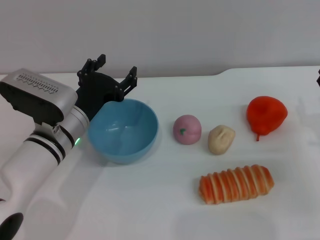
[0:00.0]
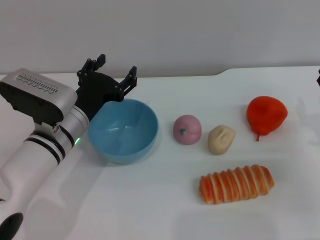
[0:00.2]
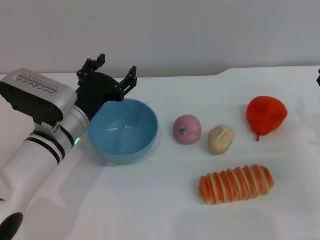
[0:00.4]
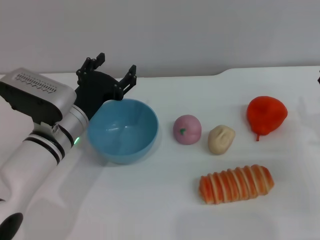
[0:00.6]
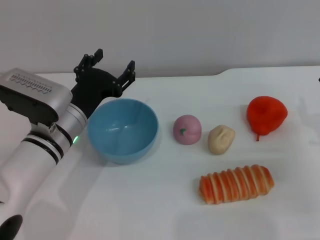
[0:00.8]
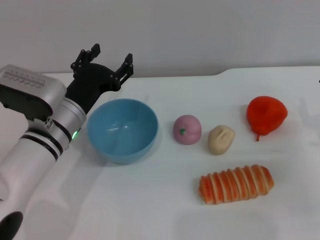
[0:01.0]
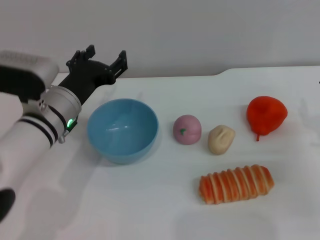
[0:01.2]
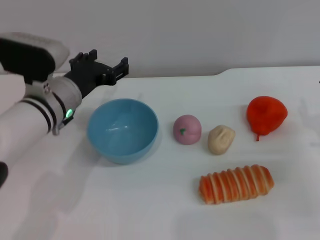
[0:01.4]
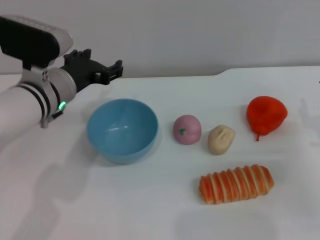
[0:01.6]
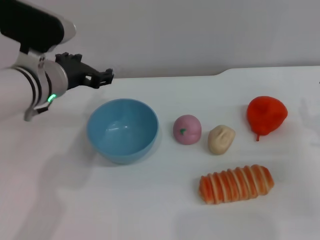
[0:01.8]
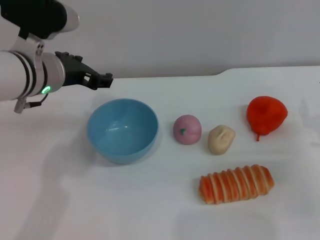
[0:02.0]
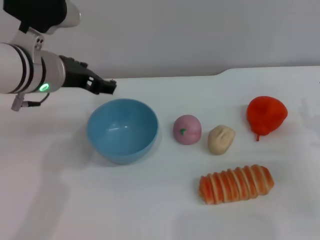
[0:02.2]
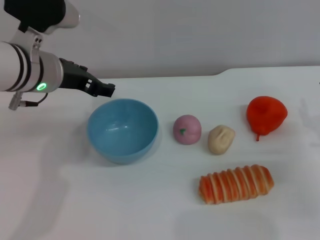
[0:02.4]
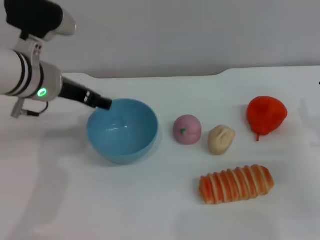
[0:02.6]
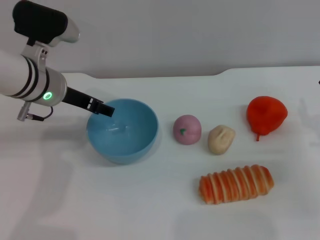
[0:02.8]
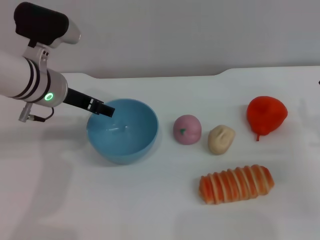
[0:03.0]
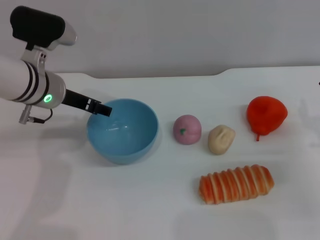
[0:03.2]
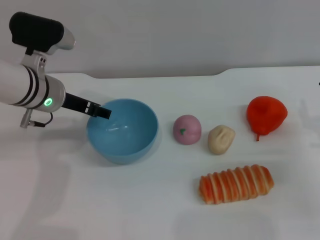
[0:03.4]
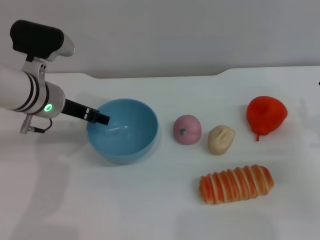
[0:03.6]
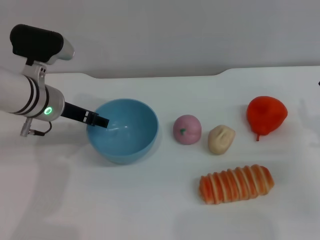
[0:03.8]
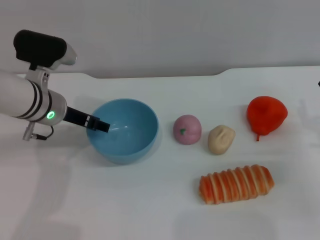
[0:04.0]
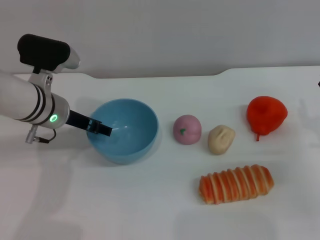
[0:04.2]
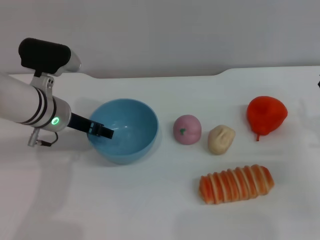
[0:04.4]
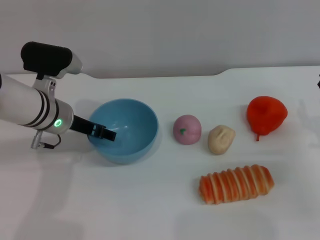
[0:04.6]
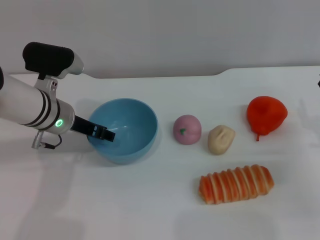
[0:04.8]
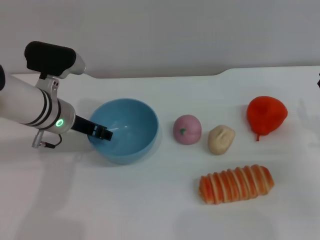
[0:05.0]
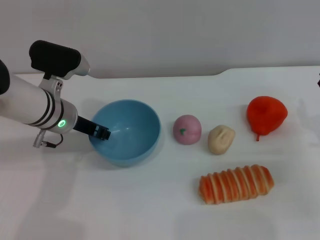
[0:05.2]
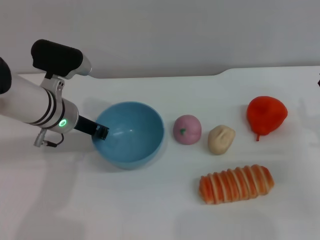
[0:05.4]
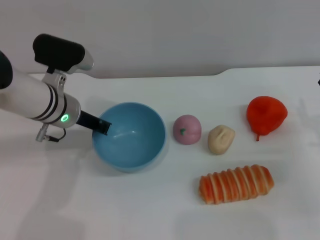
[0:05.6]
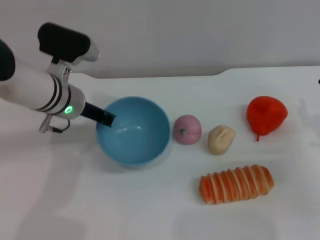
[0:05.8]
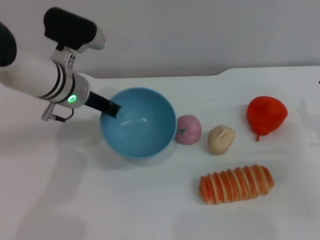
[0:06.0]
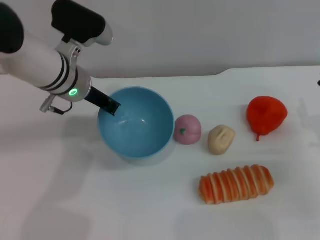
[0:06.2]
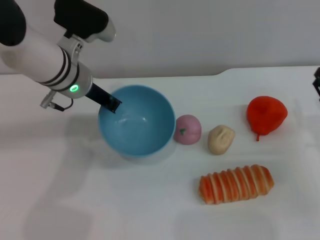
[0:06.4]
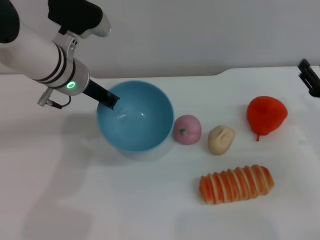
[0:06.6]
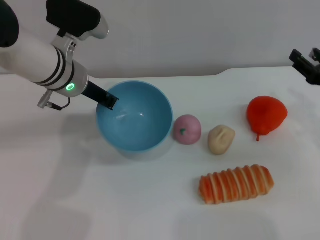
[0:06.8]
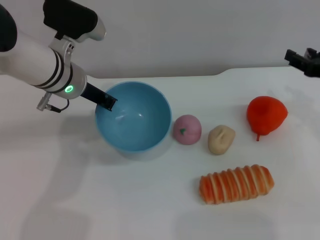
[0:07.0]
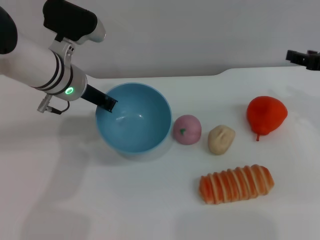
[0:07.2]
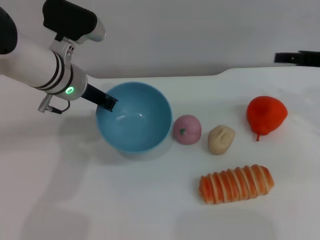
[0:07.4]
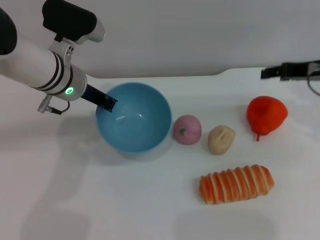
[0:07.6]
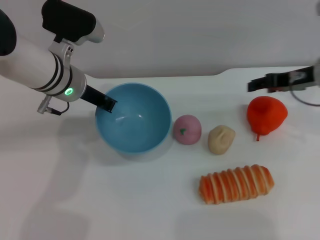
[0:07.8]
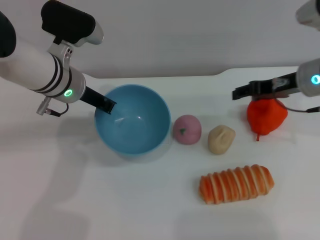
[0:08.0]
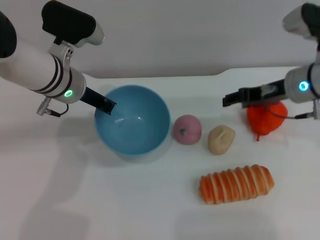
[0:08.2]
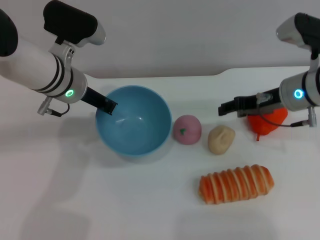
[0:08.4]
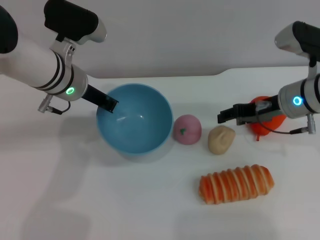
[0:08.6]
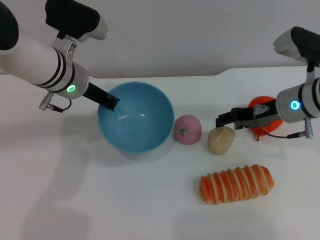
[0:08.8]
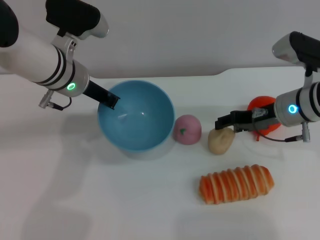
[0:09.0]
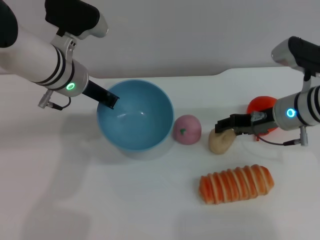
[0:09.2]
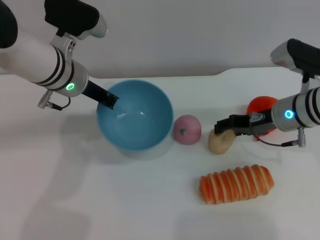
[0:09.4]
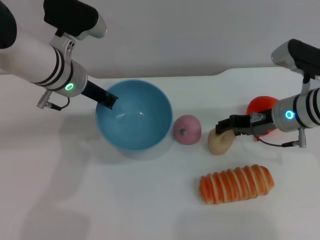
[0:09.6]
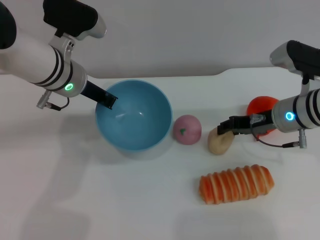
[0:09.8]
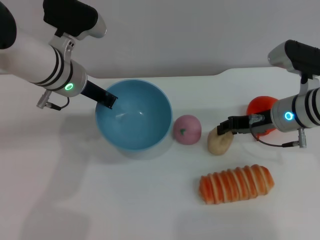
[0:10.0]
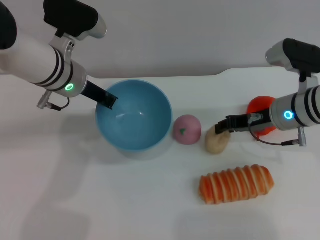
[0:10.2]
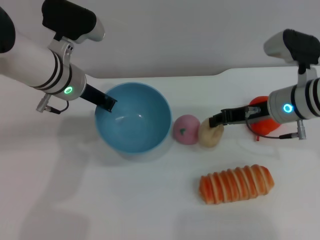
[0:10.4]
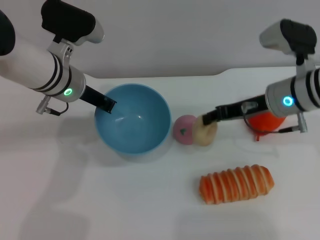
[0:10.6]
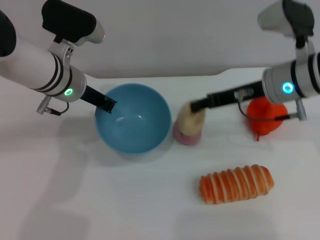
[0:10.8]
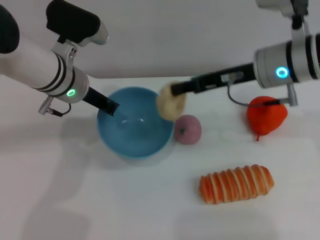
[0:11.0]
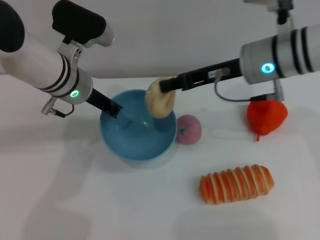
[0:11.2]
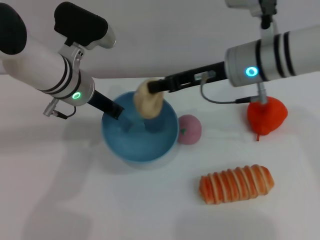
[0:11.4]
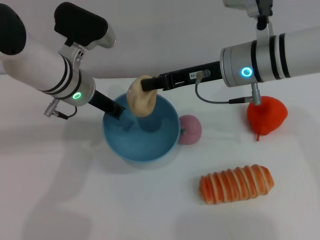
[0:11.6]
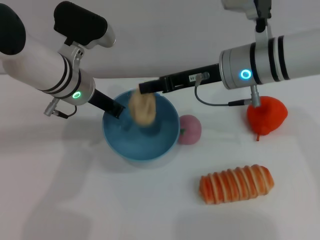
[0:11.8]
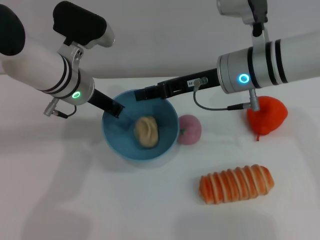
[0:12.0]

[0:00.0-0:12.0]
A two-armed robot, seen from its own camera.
Task of the whole recording: put the egg yolk pastry into the blue bowl and pour it out repeatedly.
Step, 0:00.0 to 0:06.0: Pick up the bowl with the left gripper.
Step, 0:06.4 to 0:10.4: Pick up the egg yolk pastry with the right gripper.
0:00.0 to 0:01.6: The left gripper heads upward, covering approximately 5 cm.
0:03.0 to 0:04.4: The left gripper shifts by roughly 5 cm.
0:04.4 to 0:06.0: The left gripper shifts by roughly 5 cm, and closes its fingers.
0:06.0 to 0:07.6: The right gripper heads upward and forward, covering roughly 15 cm.
0:07.6 to 0:09.0: The right gripper heads to the left and downward, covering roughly 10 cm.
0:09.0 to 0:10.4: The right gripper closes up.
0:10.4 to 0:12.0: The right gripper goes approximately 10 cm to the left and upward.

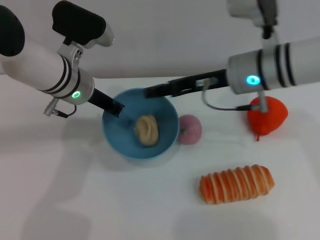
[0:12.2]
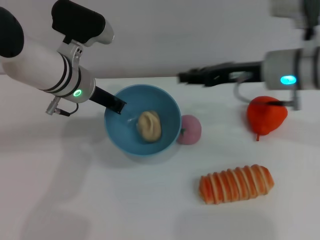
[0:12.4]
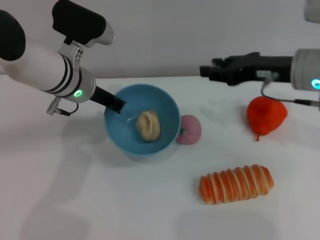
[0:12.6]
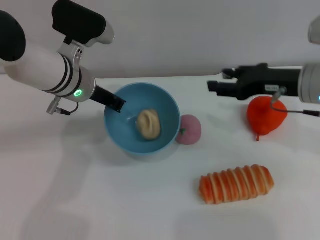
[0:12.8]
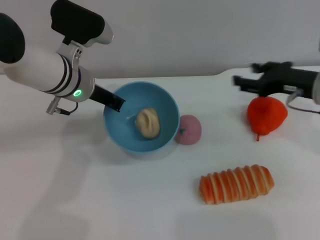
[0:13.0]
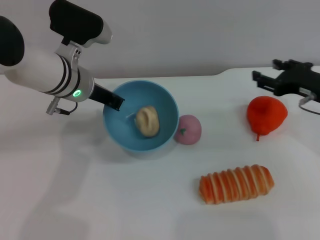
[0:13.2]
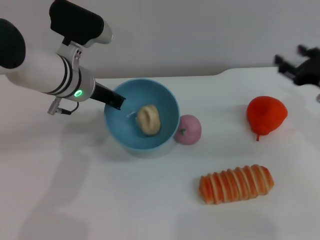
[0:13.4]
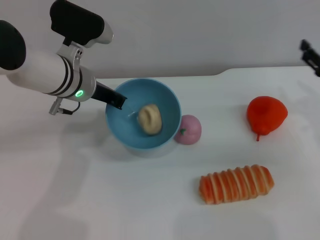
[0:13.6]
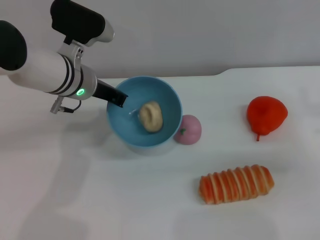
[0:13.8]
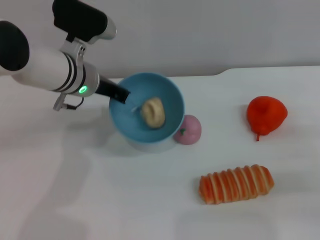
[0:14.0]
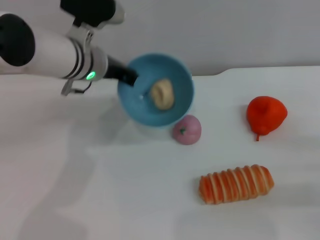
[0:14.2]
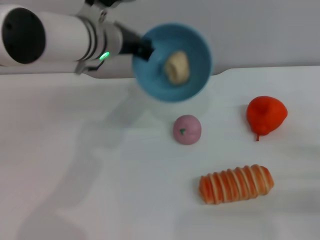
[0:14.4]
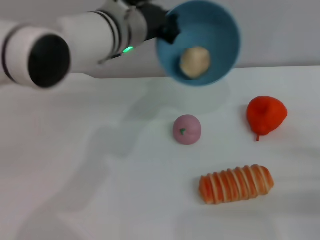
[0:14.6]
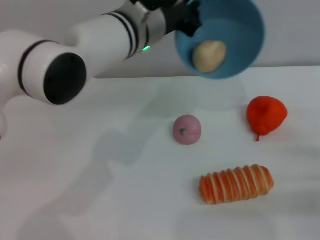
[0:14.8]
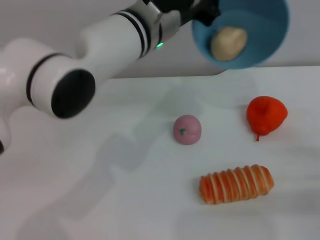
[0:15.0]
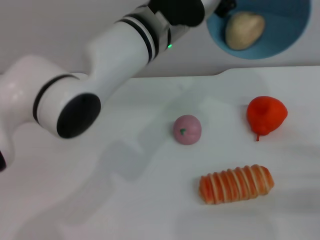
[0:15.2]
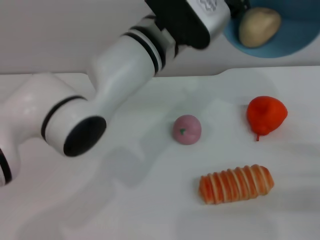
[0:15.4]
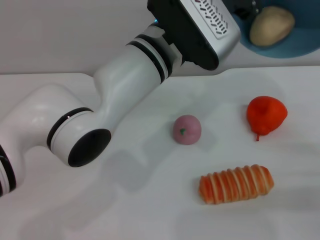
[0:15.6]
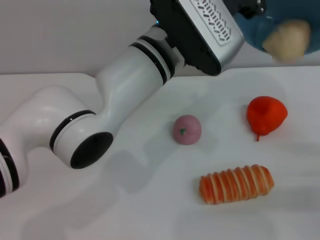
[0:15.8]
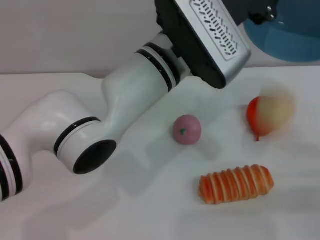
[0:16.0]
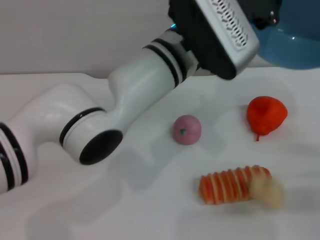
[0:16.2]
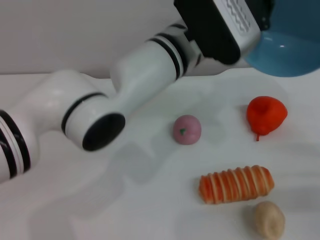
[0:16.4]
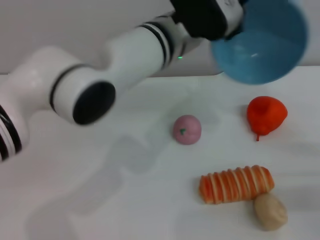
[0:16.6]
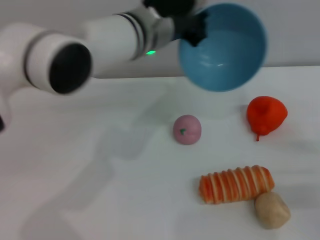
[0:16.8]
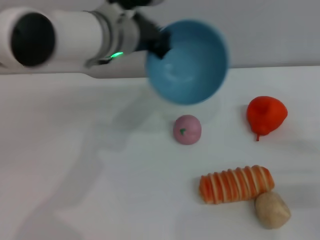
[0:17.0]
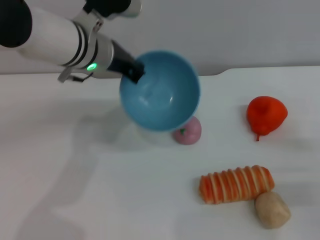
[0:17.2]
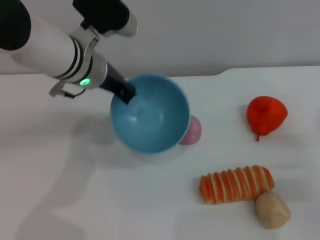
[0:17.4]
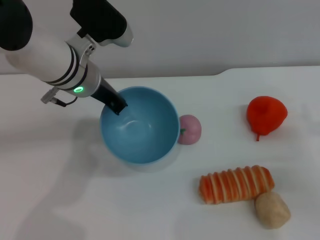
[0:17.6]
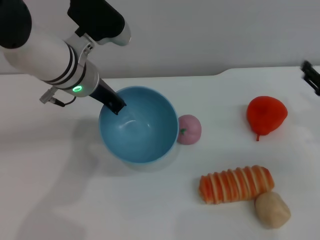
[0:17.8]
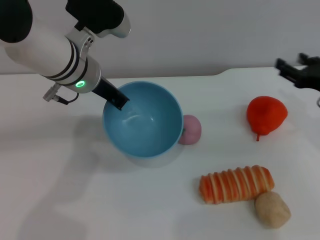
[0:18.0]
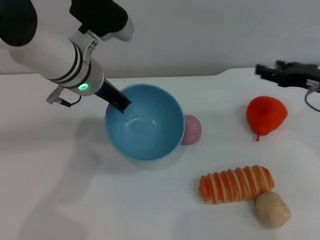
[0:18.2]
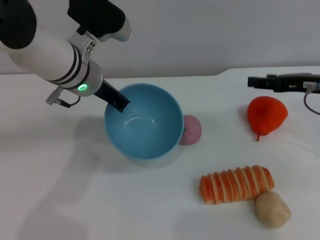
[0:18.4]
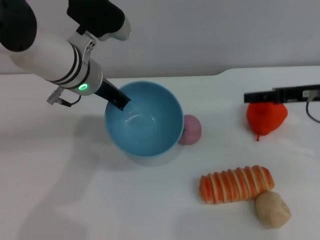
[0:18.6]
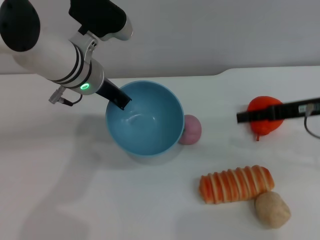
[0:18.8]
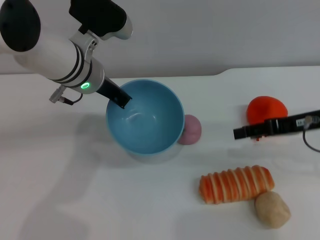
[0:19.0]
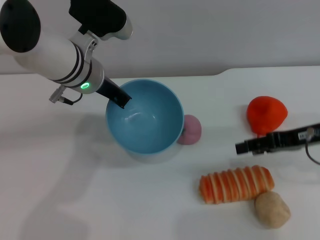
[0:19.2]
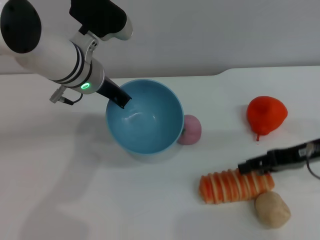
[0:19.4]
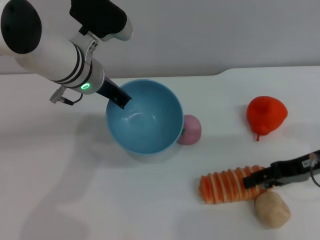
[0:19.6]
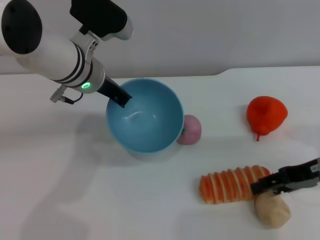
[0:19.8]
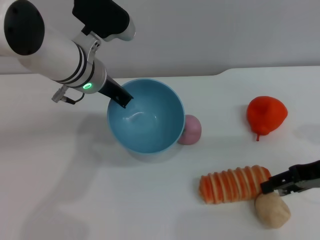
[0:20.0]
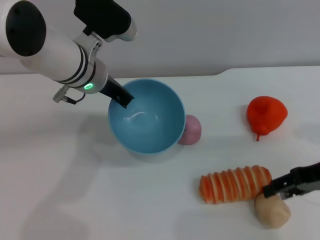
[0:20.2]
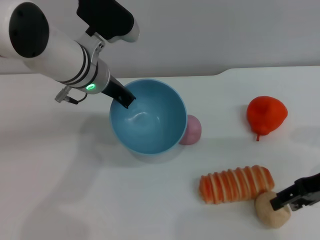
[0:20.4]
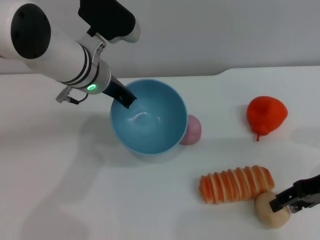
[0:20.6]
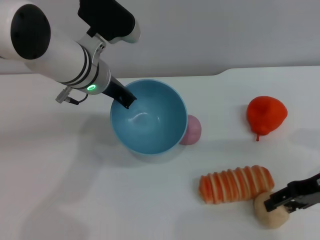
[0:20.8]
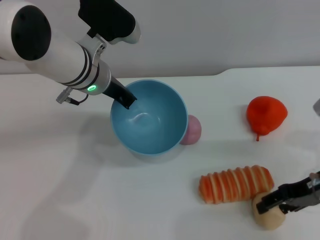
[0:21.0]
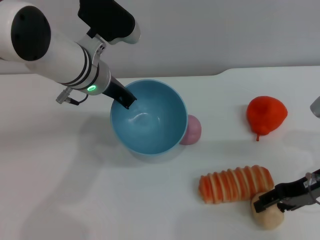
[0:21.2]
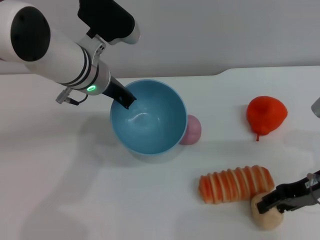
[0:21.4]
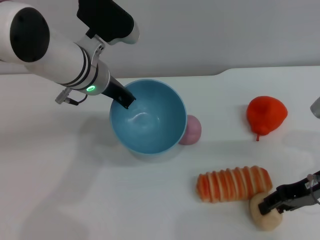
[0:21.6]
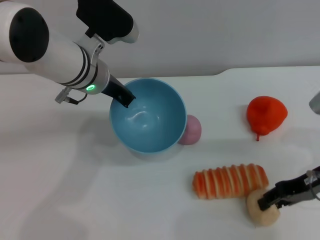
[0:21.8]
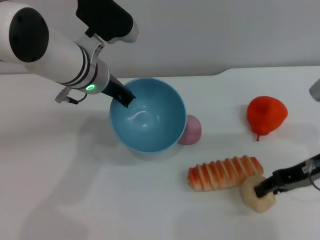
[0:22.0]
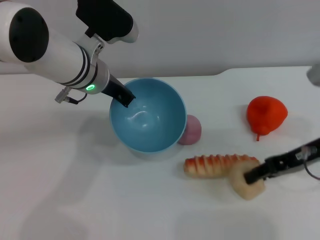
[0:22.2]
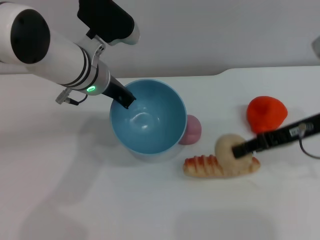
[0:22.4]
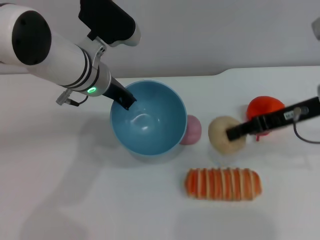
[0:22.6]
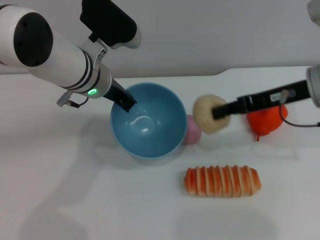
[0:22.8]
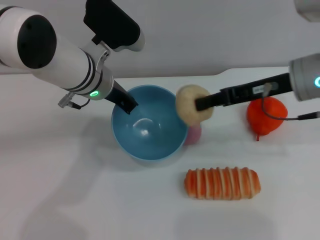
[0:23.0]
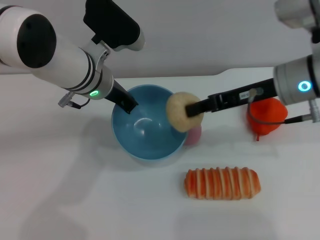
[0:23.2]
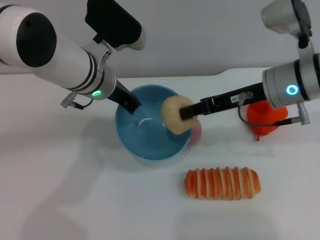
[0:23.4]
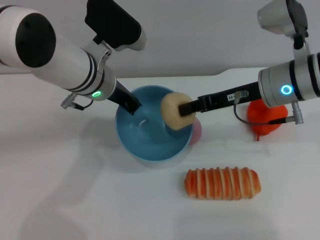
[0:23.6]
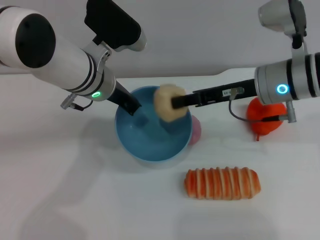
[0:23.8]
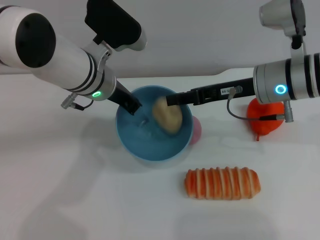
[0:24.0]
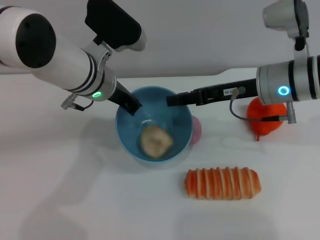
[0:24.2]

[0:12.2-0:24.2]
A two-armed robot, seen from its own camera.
Task of the whole recording: put the egg yolk pastry into the blue bowl and pour it out repeatedly.
Step, 0:13.8 to 0:16.2: Pour the egg yolk pastry out of bowl.
Step, 0:16.4 to 0:22.2: Pick up the egg yolk pastry with the right gripper.
0:12.2 to 0:13.8: The right gripper moves to the right, roughly 20 cm, and opens its fingers.
0:13.8 to 0:15.2: The left gripper heads to the right and upward, covering some 15 cm. The right gripper is displaced backward and downward by some 10 cm.
0:16.6 to 0:18.2: The left gripper heads to the left, covering about 10 cm. Meanwhile the right gripper goes some 15 cm forward, upward and to the left.
0:18.2 to 0:19.8: The right gripper shifts by some 5 cm.
0:19.8 to 0:21.2: The grippers make only small movements.
0:21.2 to 0:22.6: The right gripper goes some 10 cm upward, and closes its fingers.
0:22.6 to 0:24.2: The right gripper travels to the left by approximately 5 cm.
